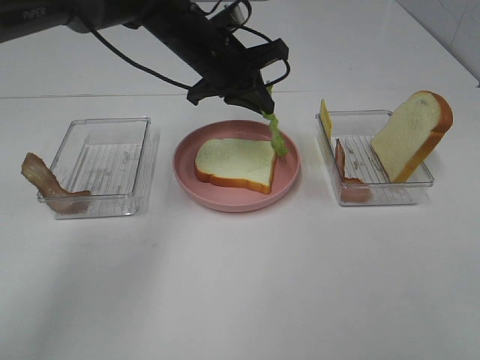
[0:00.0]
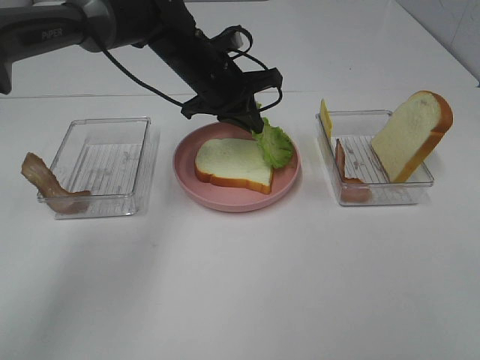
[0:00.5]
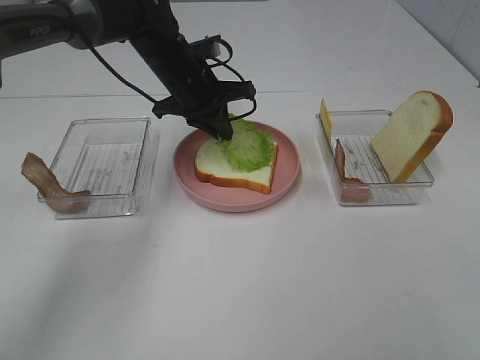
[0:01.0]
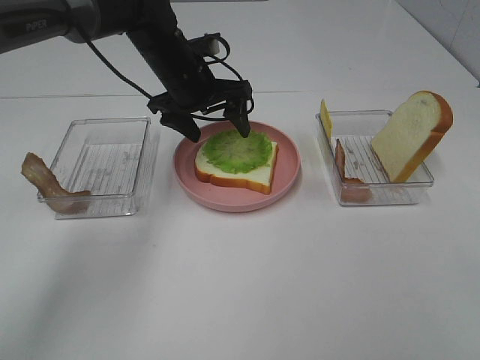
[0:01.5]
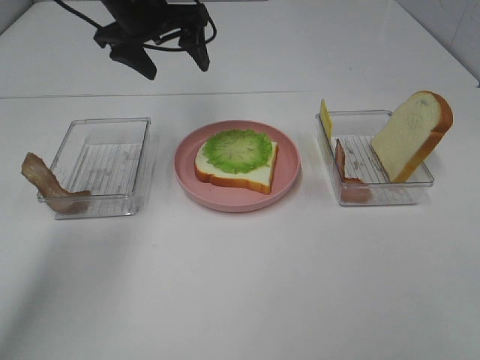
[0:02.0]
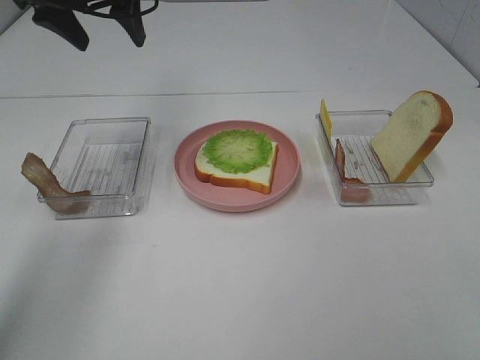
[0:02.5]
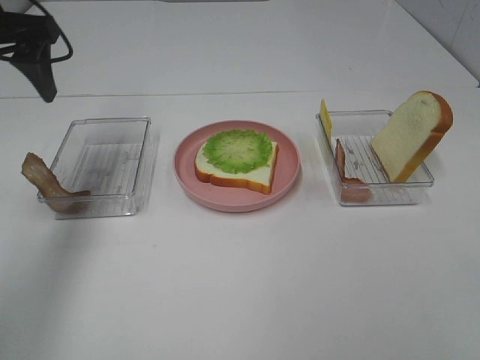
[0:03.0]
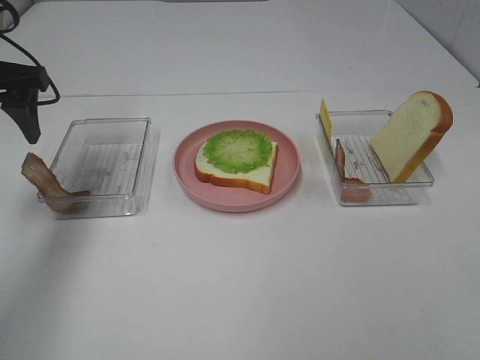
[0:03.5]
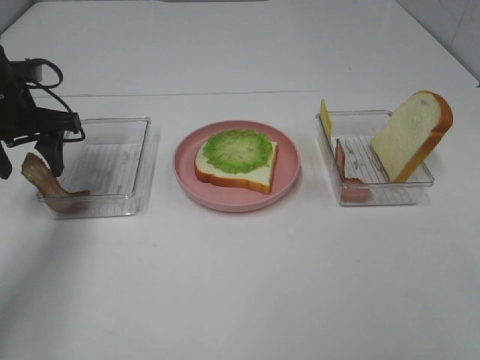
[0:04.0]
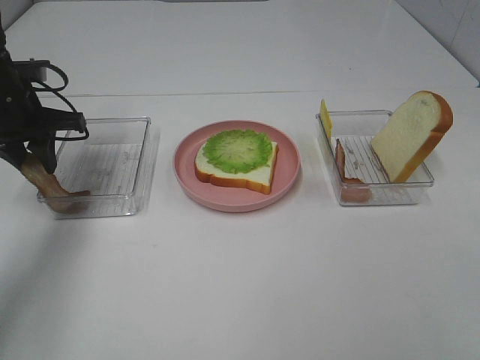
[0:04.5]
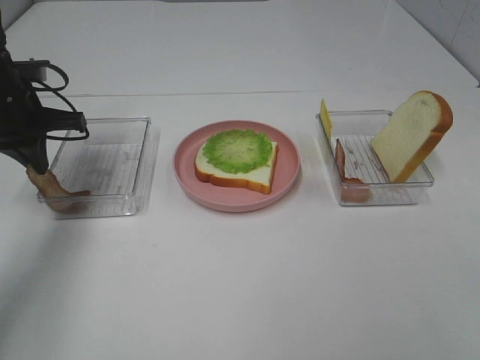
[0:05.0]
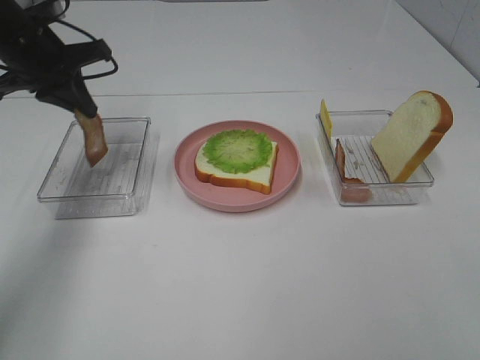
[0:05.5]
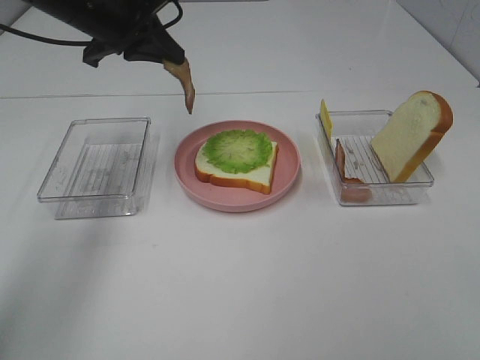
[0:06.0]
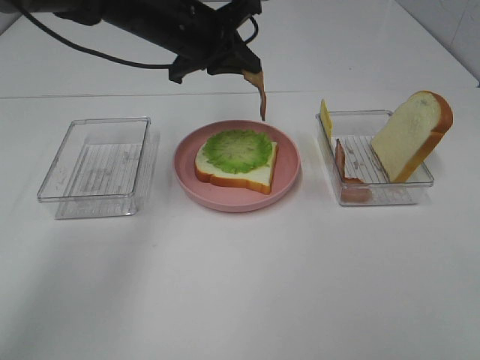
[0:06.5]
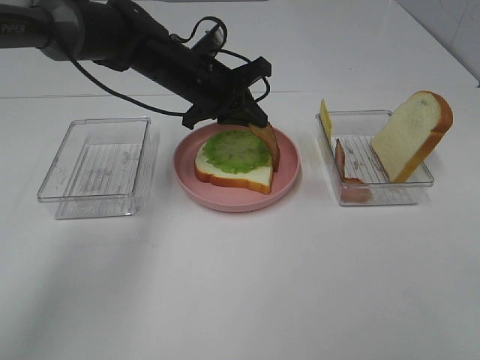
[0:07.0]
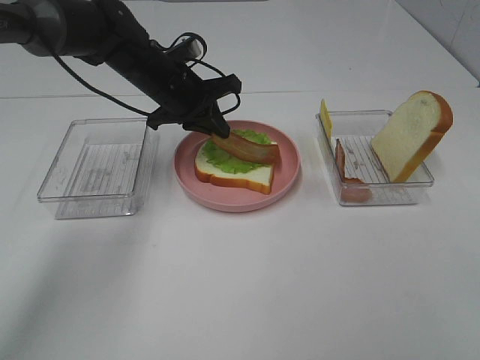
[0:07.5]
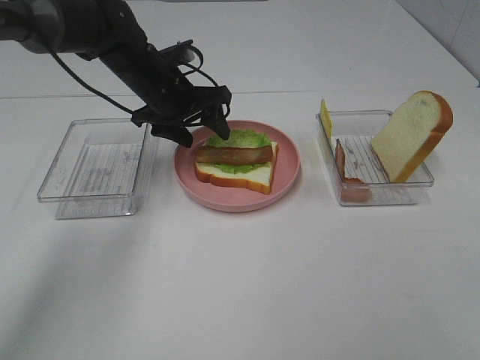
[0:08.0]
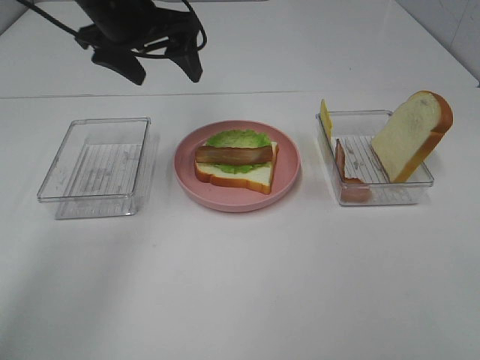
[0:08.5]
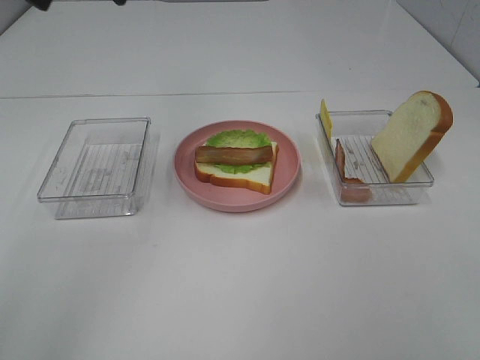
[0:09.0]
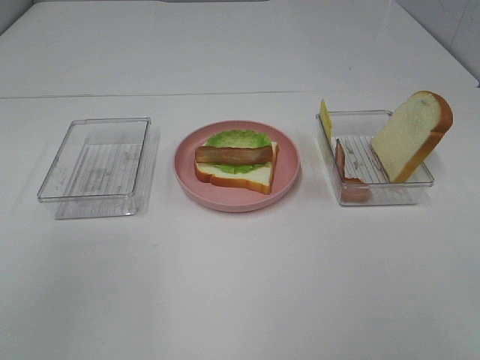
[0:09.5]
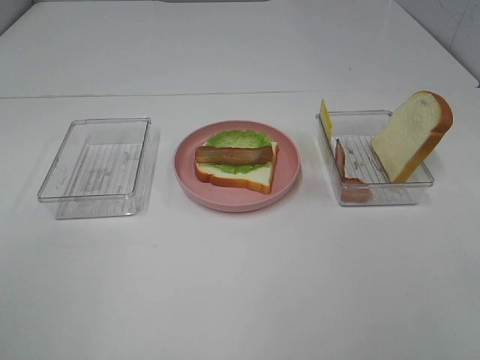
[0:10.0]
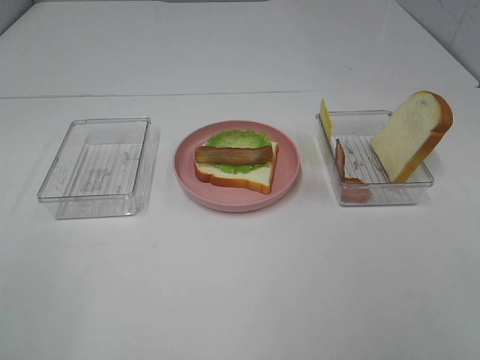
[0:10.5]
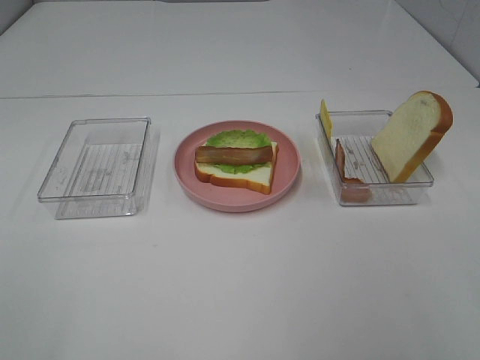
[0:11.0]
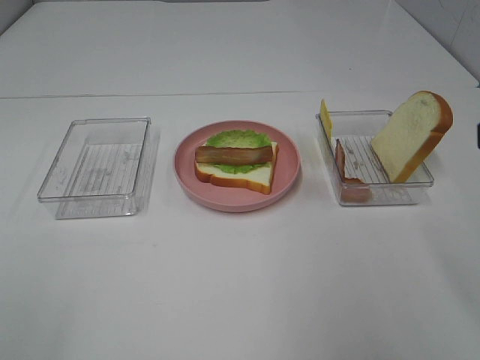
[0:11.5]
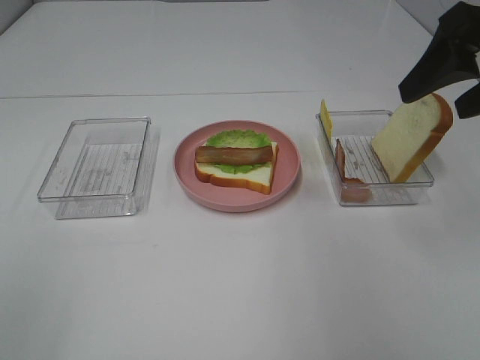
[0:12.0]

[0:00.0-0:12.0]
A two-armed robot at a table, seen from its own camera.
Task of the whole recording: Make sandwiches.
Step, 0:02.0 to 0:05.0: Left hand:grab the bacon.
Step, 0:05.5 to 0:08.0: Left hand:place bacon on lettuce slice.
0:00.0 to 0:02.0: The left gripper heads to the left and upward, covering some 10 cm, and opens its fingers.
0:02.0 to 0:04.0: The left gripper heads to the left, backward and downward, covering some 20 cm.
0:04.0 to 0:06.0: The left gripper goes about 15 cm to the right and upward, and closes its fingers.
0:06.0 to 0:08.0: The left gripper is displaced downward by roughly 10 cm, and opens.
0:08.0 to 0:10.0: The left gripper is displaced backward, upward and to the left by roughly 50 cm.
0:10.0 to 0:12.0: The right gripper is displaced forward by roughly 30 cm.

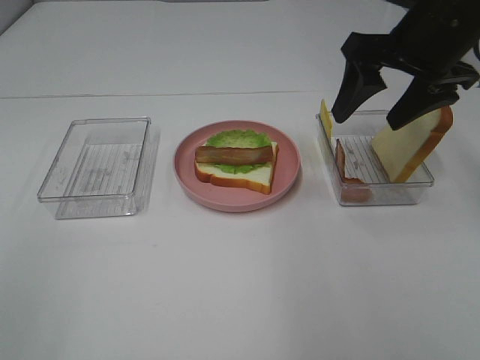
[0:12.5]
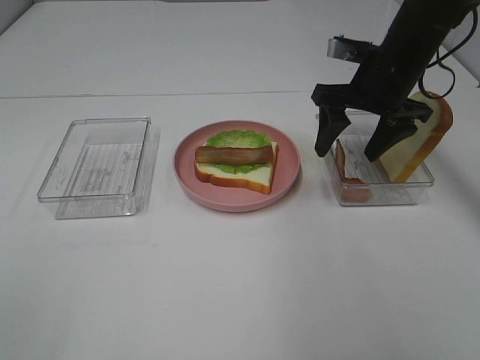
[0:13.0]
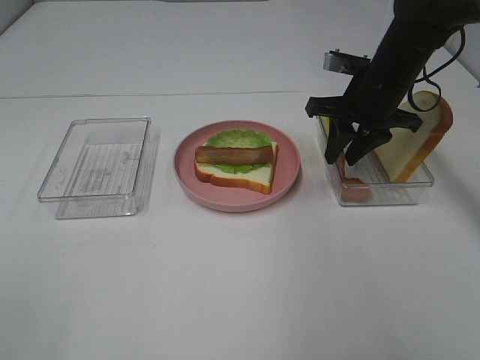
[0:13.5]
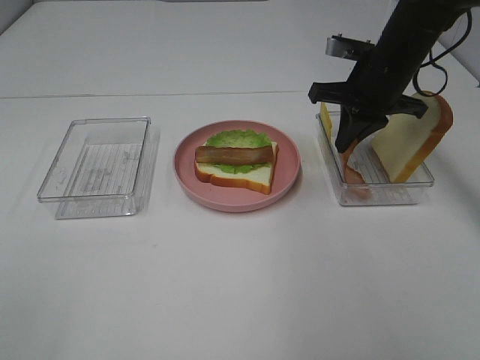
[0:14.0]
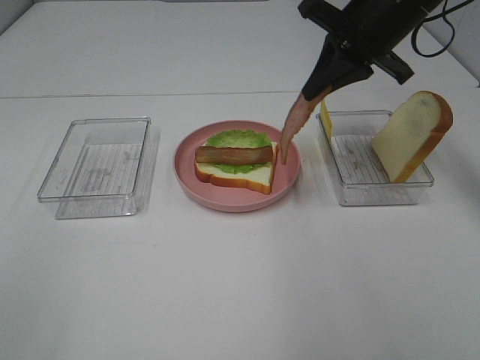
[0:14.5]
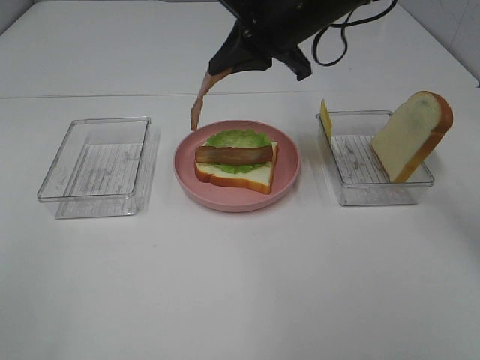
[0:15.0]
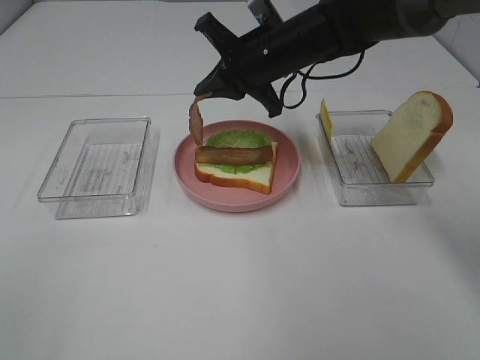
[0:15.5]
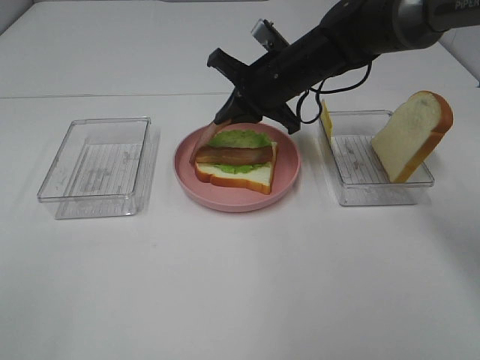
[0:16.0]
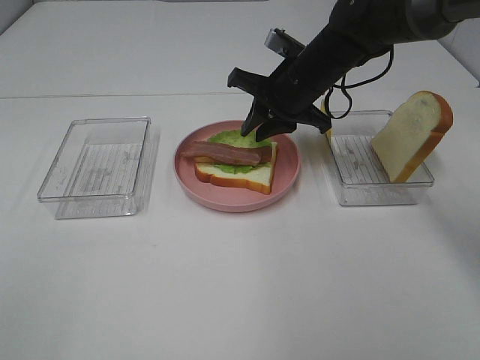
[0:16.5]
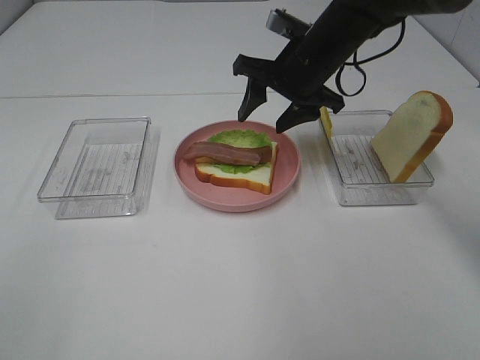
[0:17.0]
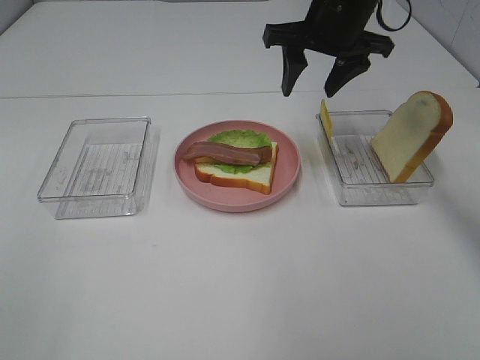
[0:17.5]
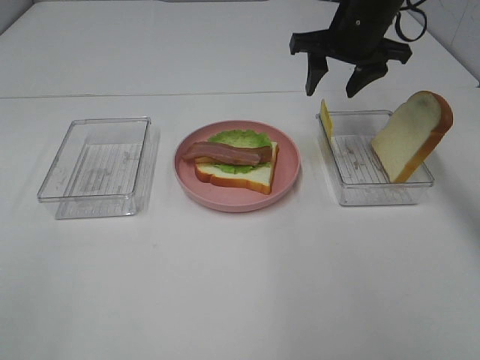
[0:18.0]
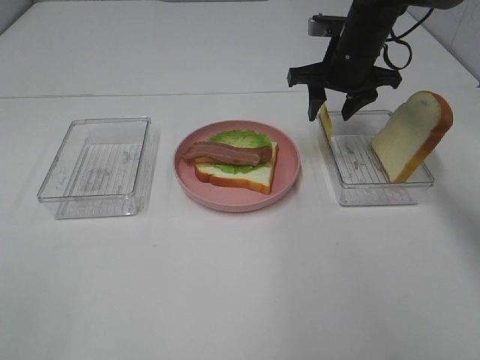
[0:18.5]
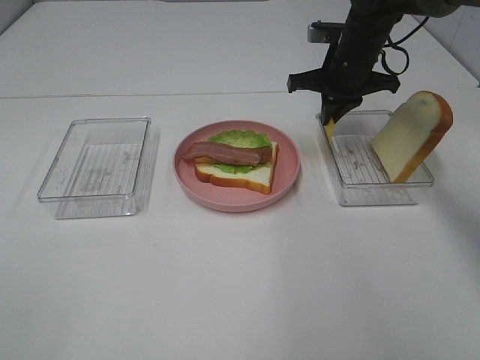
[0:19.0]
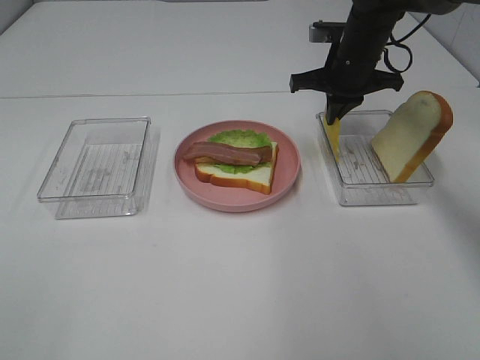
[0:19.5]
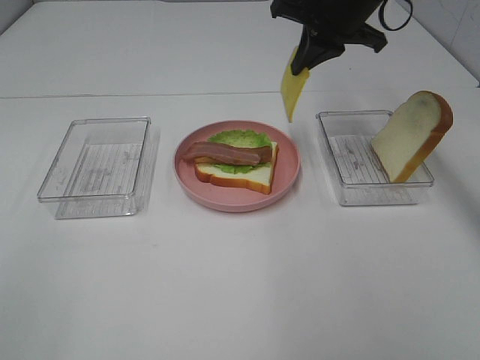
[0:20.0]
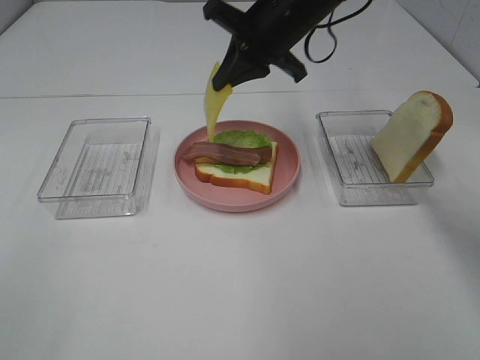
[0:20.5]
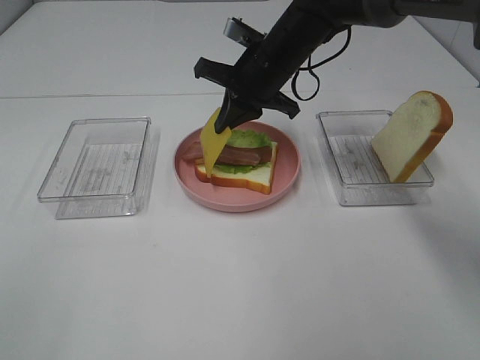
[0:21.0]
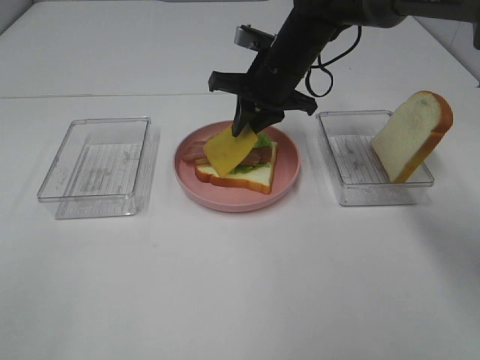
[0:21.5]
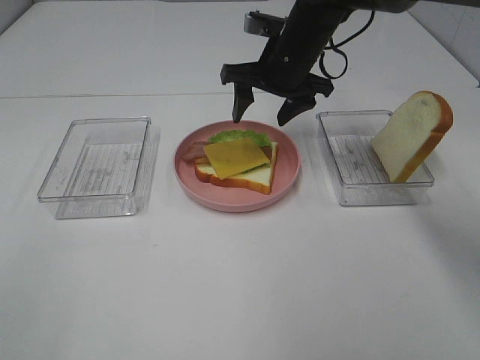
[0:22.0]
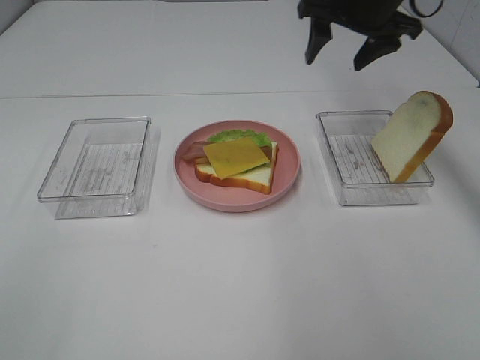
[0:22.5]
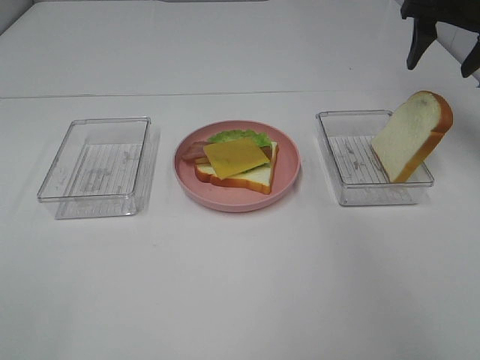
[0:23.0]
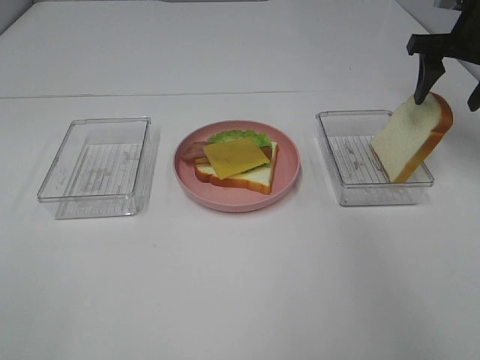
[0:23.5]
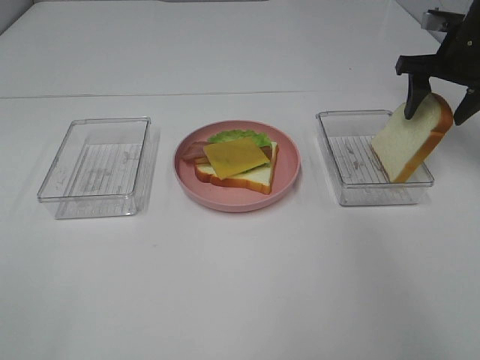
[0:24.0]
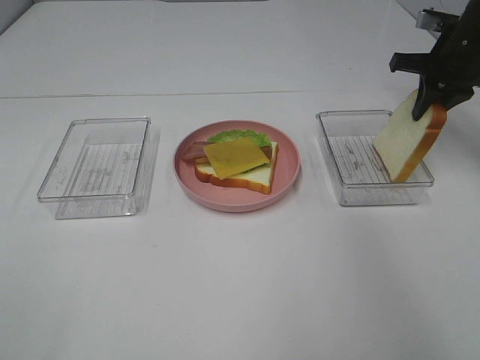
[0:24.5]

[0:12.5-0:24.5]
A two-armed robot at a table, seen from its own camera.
Task of the whole recording: Make sandwiches.
Step, 0:14.0 to 0:16.5: Right hand:place bacon on bacon.
Step, 0:17.0 to 0:19.5: Right hand:grab the cheese slice.
Step, 0:20.0 to 0:21.5: Right hand:place the cheese slice on top of the bacon.
Step, 0:22.0 to 0:24.5: Right hand:grab the bread slice.
0:12.5 to 0:14.5: The right gripper moves some 10 cm downward and comes back, and closes its fingers.
0:14.5 to 0:16.5: The right gripper moves downward and to the left, about 15 cm, and opens up.
0:16.5 to 0:18.5: The right gripper is displaced to the right by roughly 5 cm, moves approximately 10 cm upward and comes back, and opens.
0:18.5 to 0:20.5: The right gripper goes approximately 10 cm to the left and upward, and closes.
0:20.5 to 0:22.5: The right gripper shifts about 10 cm to the right, and opens.
0:22.5 to 0:24.5: The right gripper shifts about 15 cm to the right and downward, and closes.

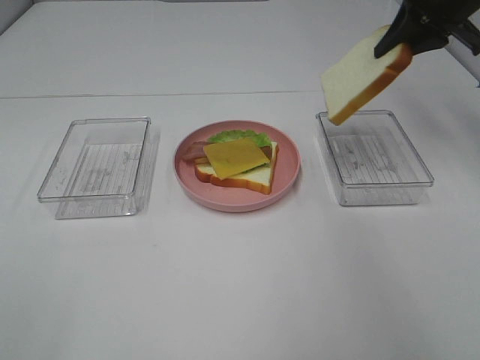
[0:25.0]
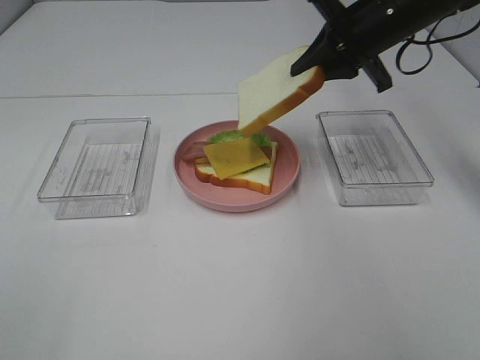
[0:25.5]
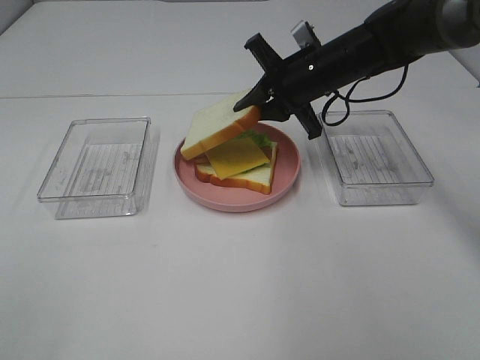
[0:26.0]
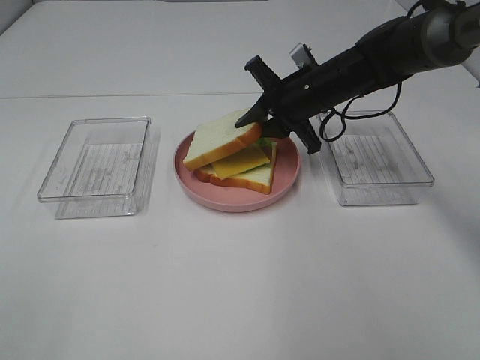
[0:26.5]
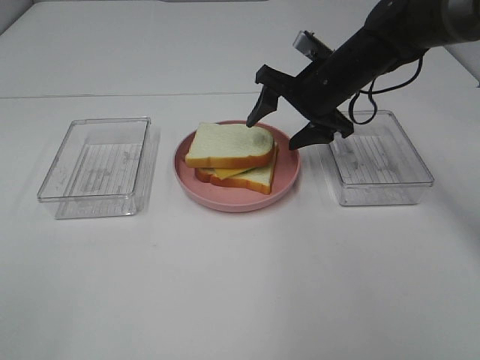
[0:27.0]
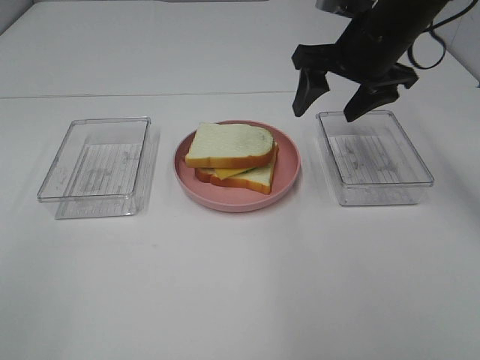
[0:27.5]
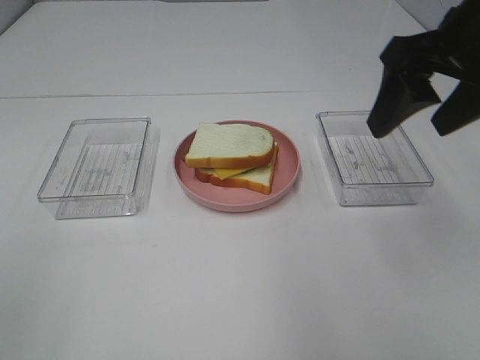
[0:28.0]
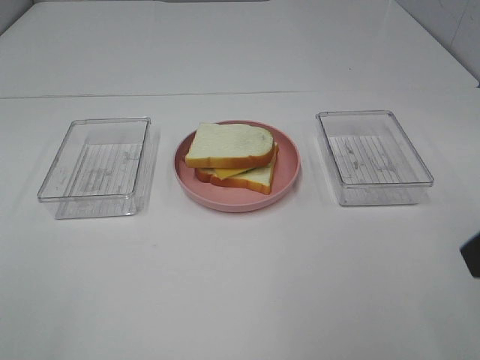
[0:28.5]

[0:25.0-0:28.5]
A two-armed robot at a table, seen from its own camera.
Task of the whole recording: Make sandwiches.
Step, 0:25.0 to 0:27.0: Right hand:place the bread slice on the cheese slice.
0:25.0 to 0:27.0: The right gripper moves to the left and downward, some 15 cm, and opens up.
0:27.0 to 0:28.5: The right gripper goes roughly 35 cm backward and upward.
